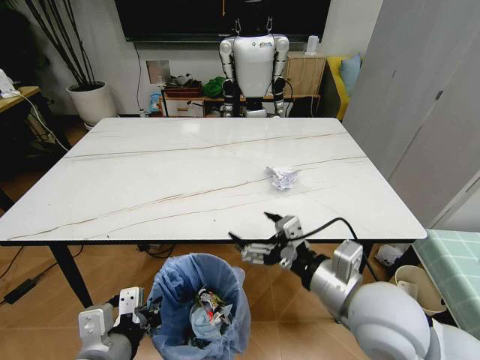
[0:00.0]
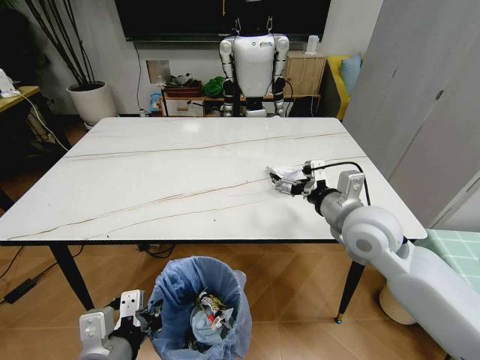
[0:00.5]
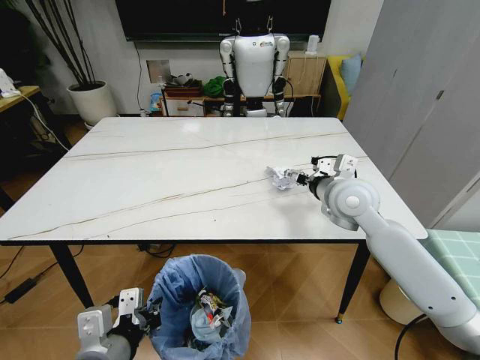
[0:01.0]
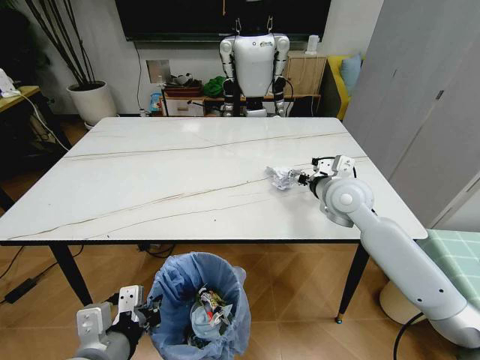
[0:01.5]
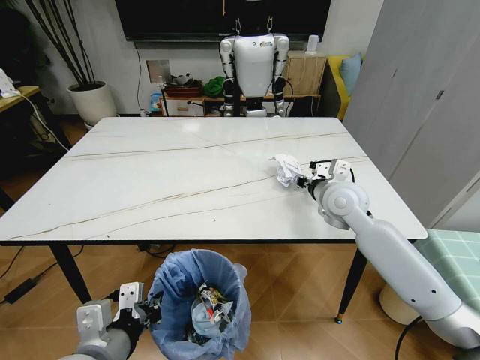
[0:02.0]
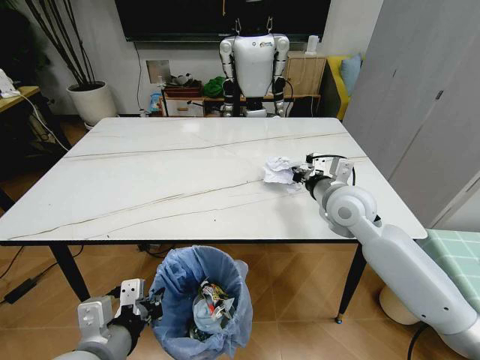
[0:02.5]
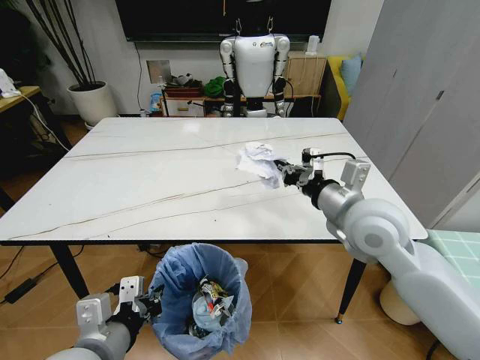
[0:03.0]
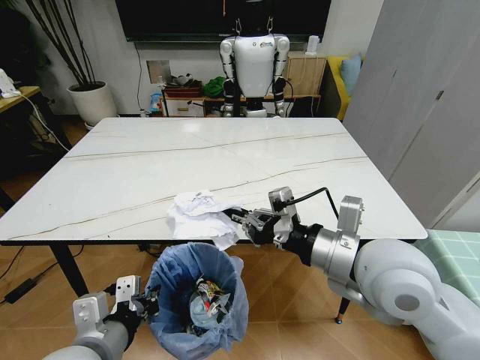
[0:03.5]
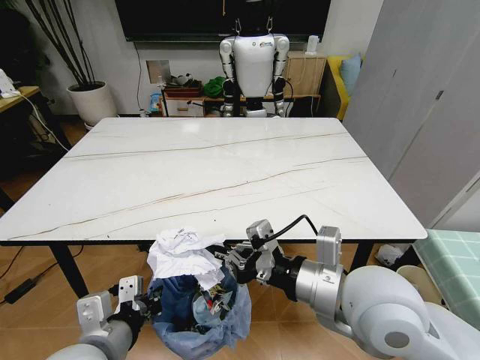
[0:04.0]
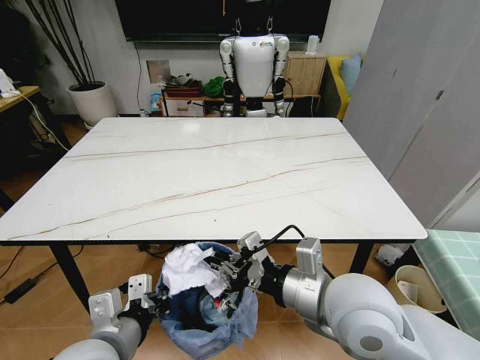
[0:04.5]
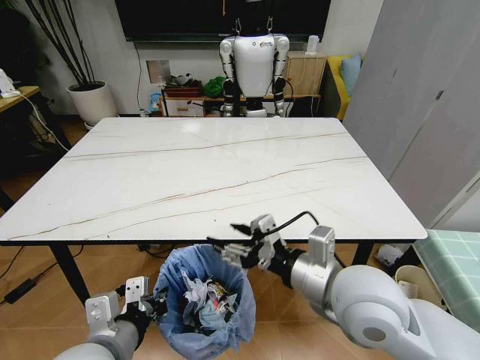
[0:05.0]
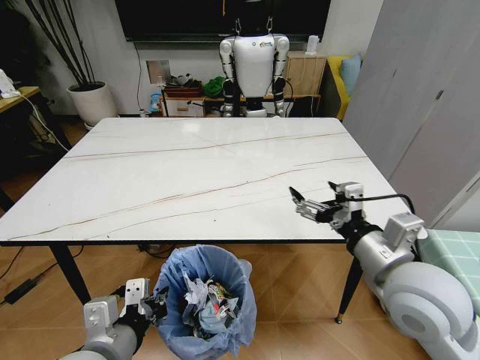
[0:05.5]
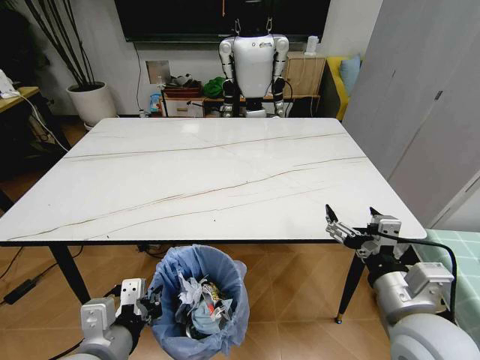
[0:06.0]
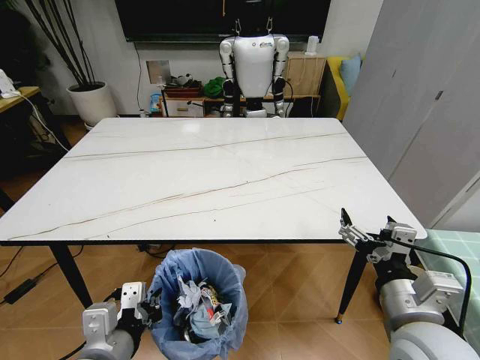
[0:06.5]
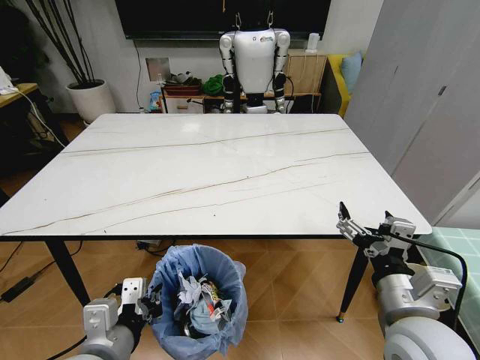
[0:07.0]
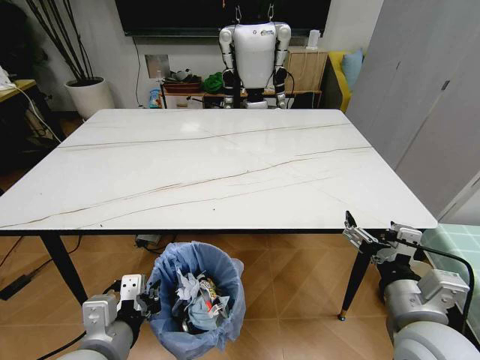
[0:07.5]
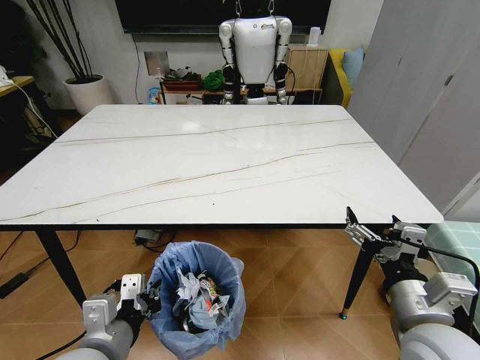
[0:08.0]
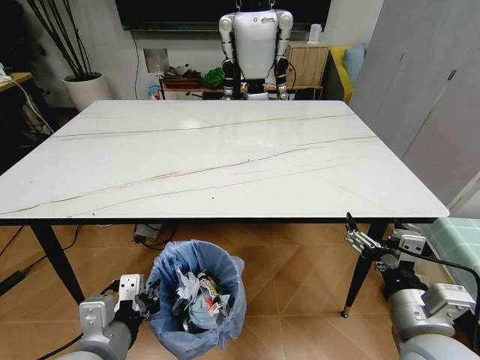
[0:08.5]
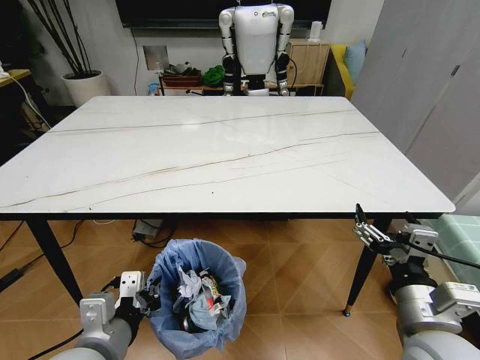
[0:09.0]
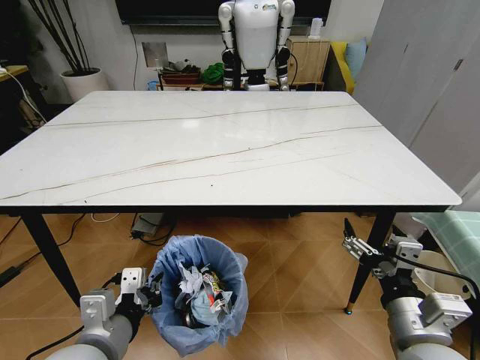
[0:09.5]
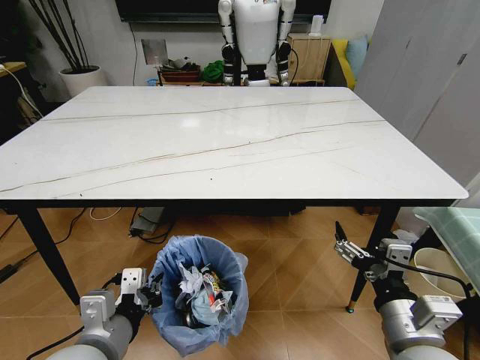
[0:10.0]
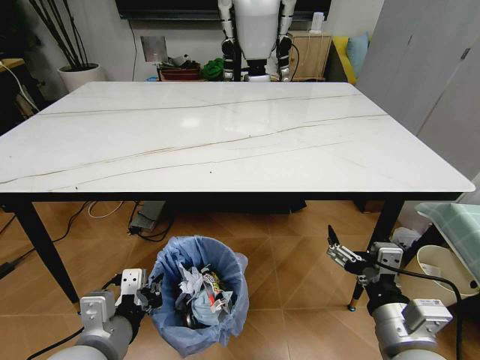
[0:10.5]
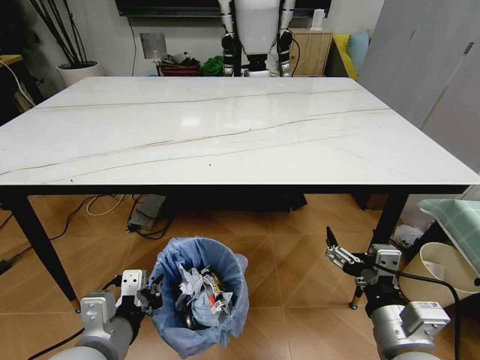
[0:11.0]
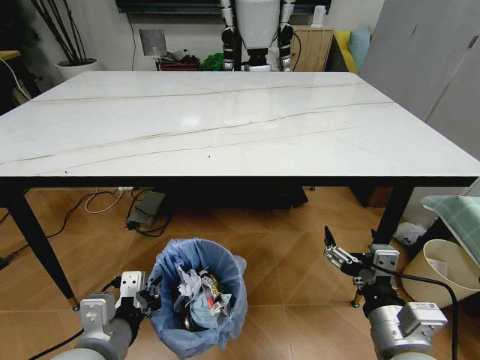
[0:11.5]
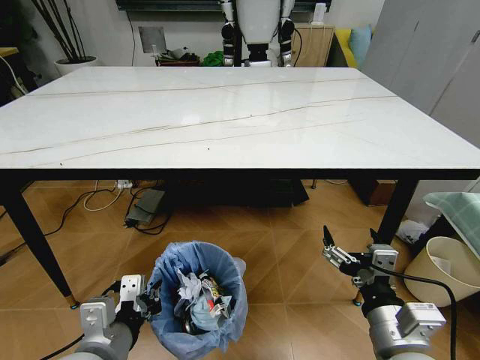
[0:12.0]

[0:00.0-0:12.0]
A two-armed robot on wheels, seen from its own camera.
Task of the whole recording: Pick up the trash bin and place the trash from the table into it.
0:00.0 to 0:02.0: The right gripper shifts about 25 cm forward, and closes.
0:02.0 to 0:04.0: The right gripper shifts about 25 cm backward, and closes its fingers.
0:04.0 to 0:06.0: The right gripper is displaced to the right and downward by approximately 10 cm, and opens.

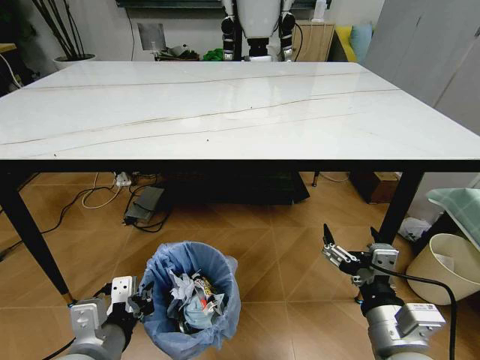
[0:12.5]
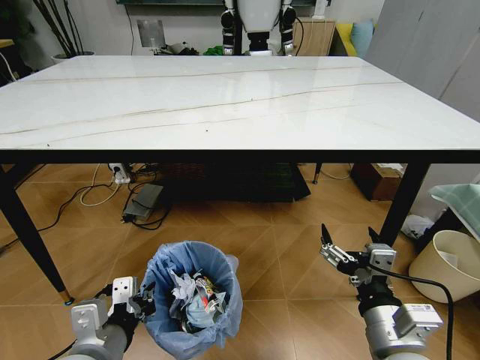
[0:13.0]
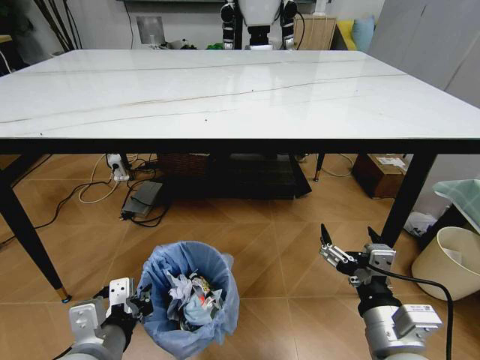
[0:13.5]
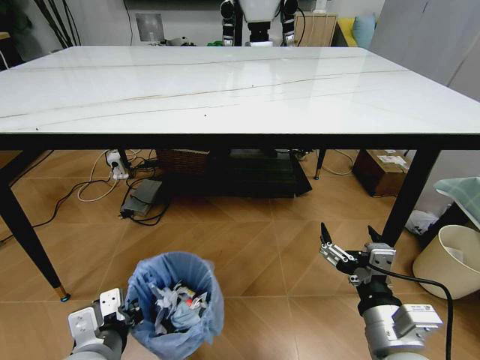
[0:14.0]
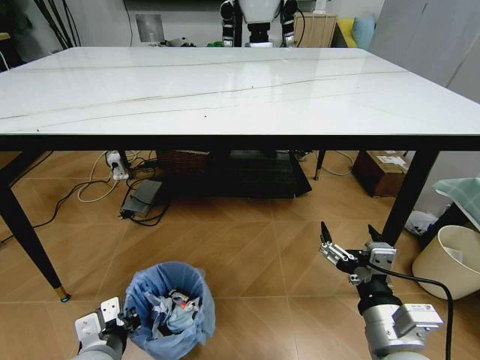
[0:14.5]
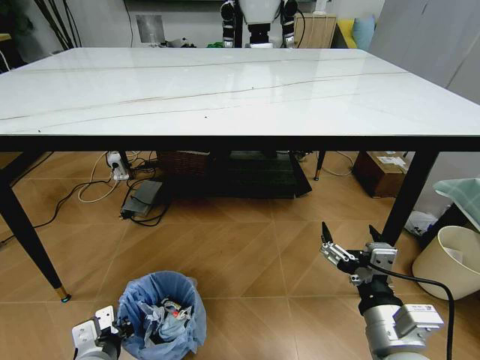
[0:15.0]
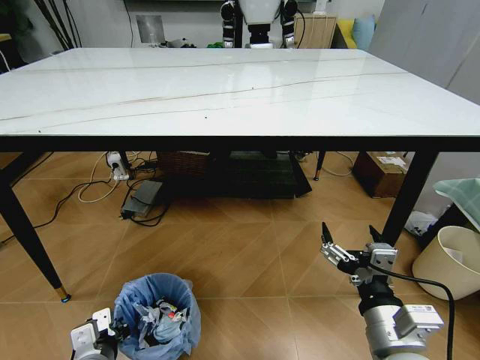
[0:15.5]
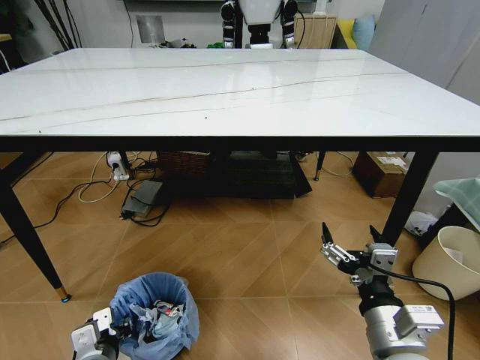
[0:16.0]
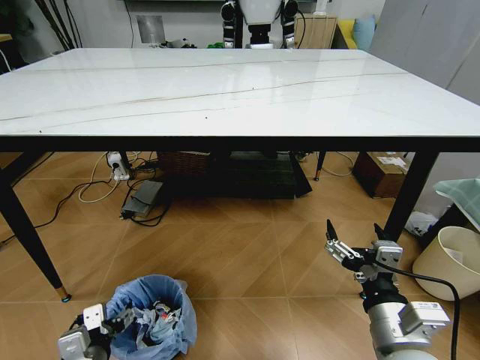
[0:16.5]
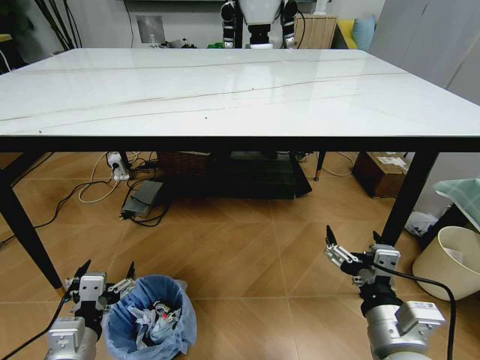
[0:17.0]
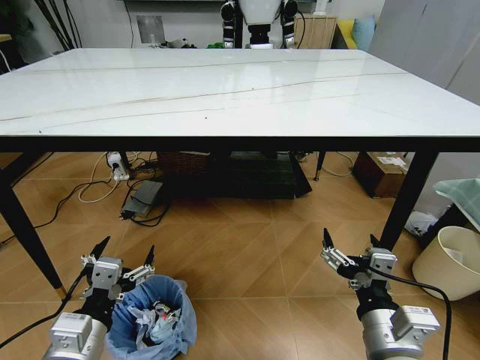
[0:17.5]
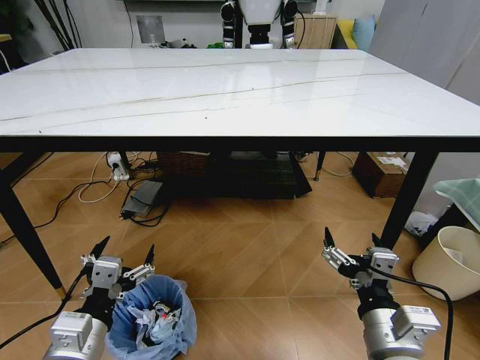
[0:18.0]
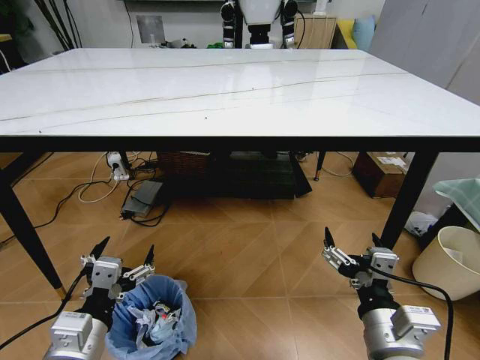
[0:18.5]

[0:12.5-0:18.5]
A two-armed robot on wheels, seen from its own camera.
Task of the whole recording: Pick up the trash bin and place the trash from the table into it.
0:12.5 to 0:14.5: The left gripper travels downward by approximately 10 cm.
0:14.5 to 0:16.5: The left gripper opens its fingers.
0:16.5 to 0:18.5: The left gripper travels upward by approximately 10 cm.
